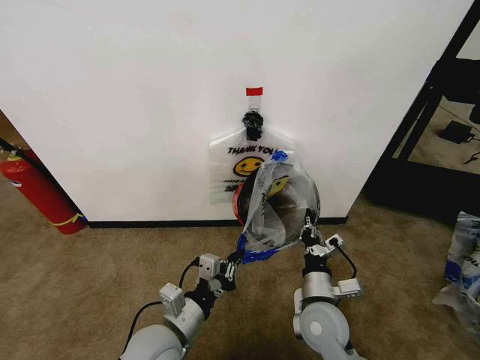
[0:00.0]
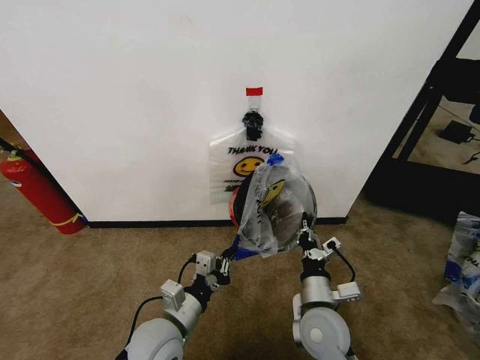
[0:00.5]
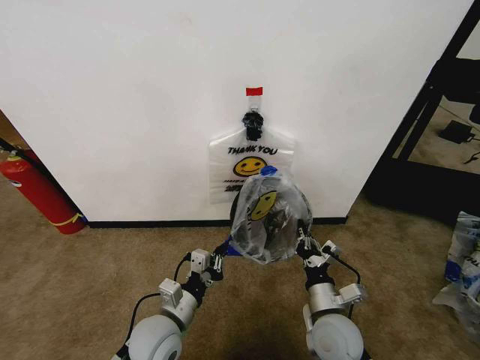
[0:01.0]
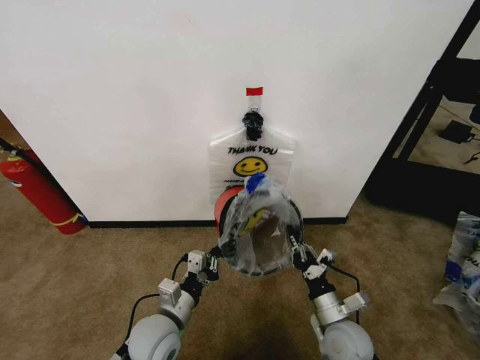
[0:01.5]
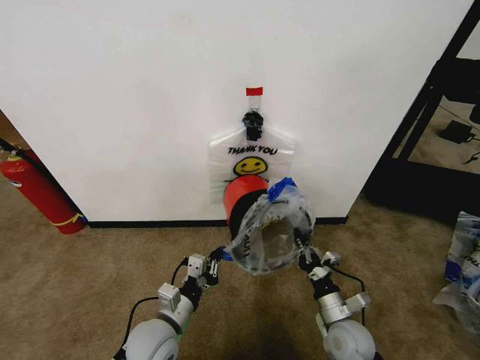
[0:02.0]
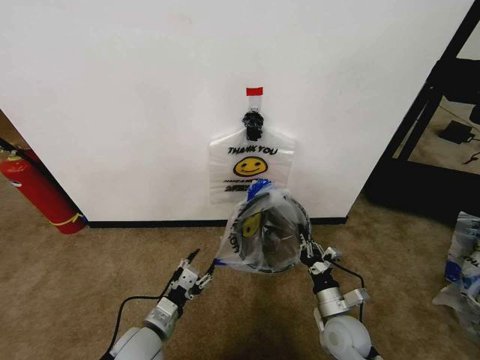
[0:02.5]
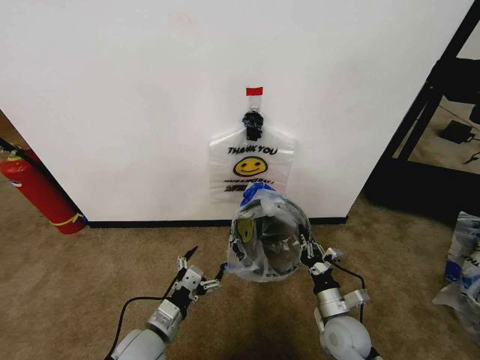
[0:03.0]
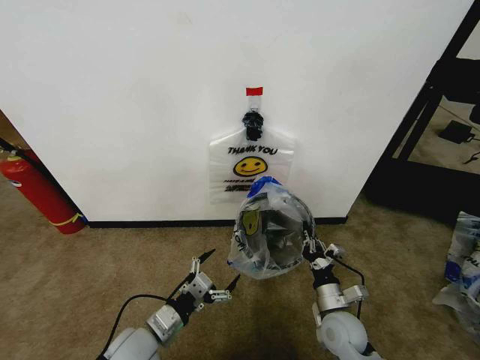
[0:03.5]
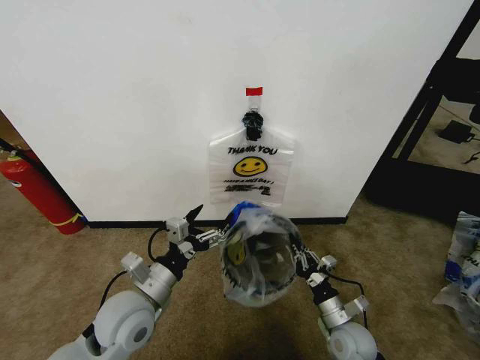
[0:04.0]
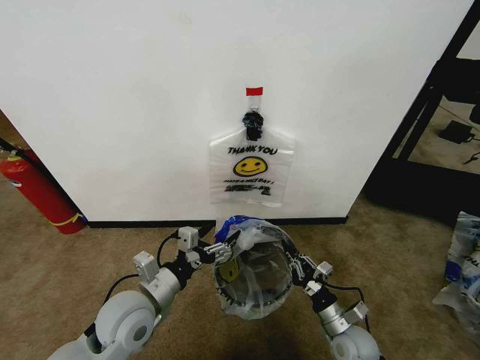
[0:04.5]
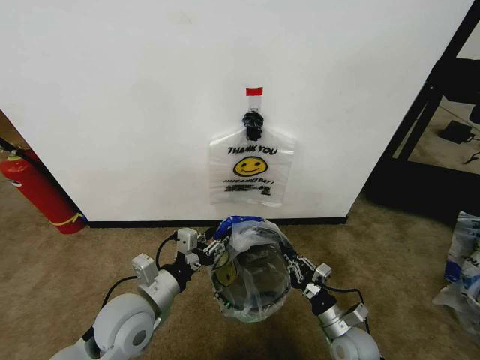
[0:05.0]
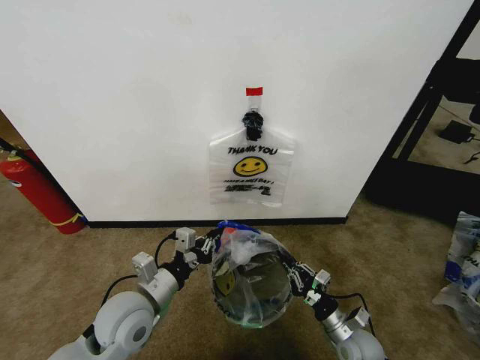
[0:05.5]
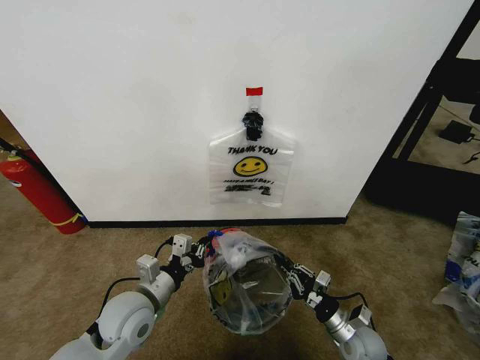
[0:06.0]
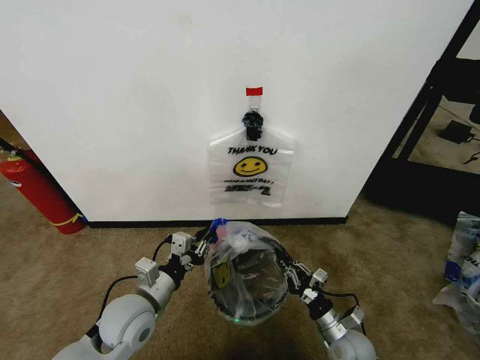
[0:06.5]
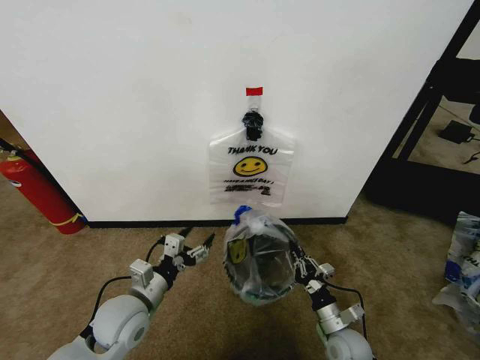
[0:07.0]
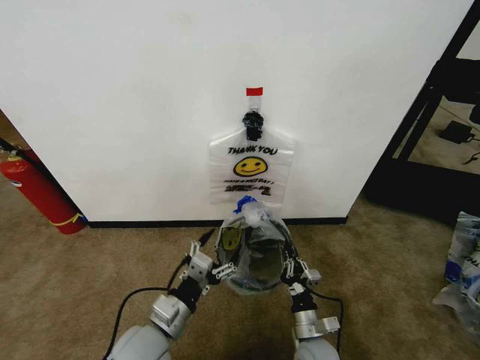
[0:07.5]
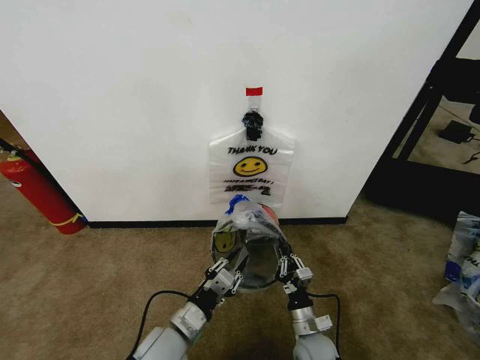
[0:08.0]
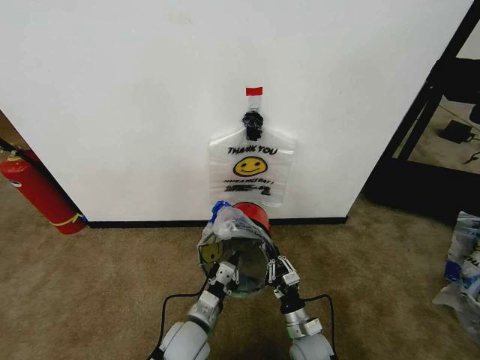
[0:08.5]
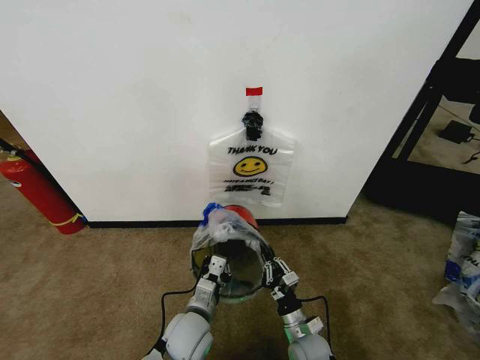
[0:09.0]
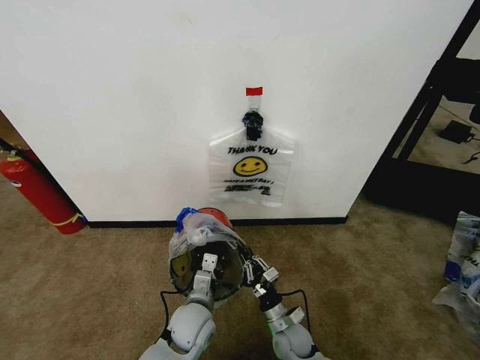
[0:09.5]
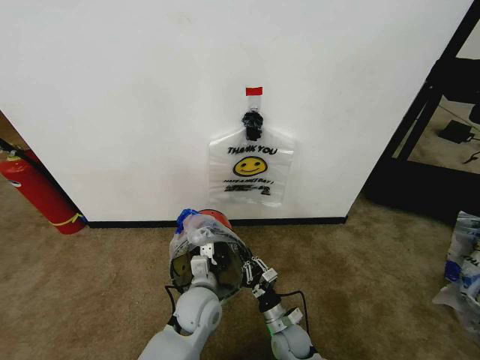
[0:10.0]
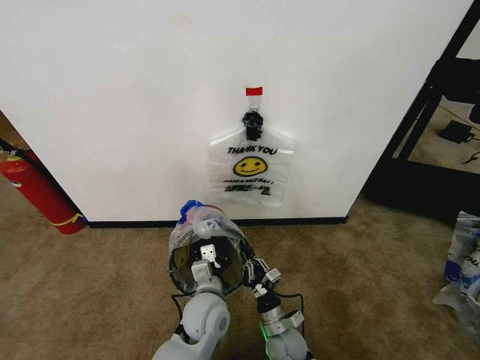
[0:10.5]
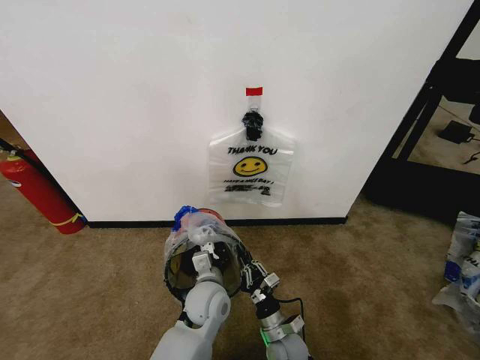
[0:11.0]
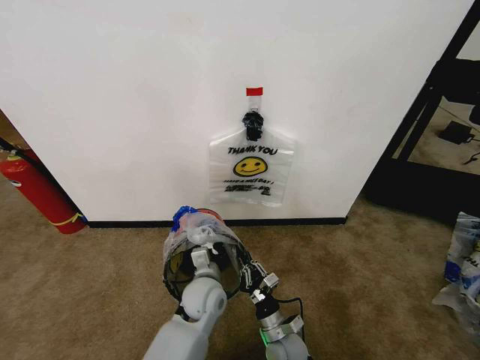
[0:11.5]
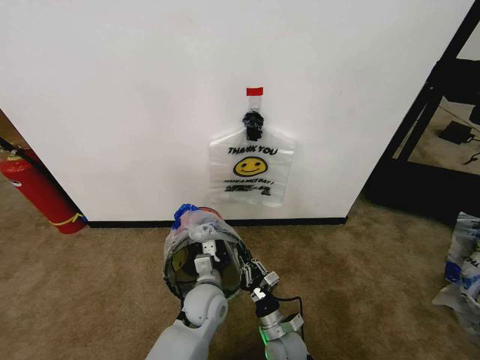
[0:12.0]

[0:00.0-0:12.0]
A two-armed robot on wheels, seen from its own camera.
Task of the whole recording: Pick up the garbage bag from the wall and place it over the trash bin.
0:00.0 to 0:02.0: The right gripper heads downward and to the right, covering about 10 cm. The left gripper shifts roughly 5 cm downward.
0:02.0 to 0:04.0: The left gripper is displaced upward by about 10 cm, and opens up.
0:04.0 to 0:06.0: The left gripper closes its fingers.
0:06.0 to 0:08.0: The left gripper moves downward and to the right, approximately 10 cm, and opens, then closes again; the right gripper is displaced to the left by about 10 cm.
0:08.0 to 0:10.0: The left gripper heads forward and to the right, covering approximately 10 cm; the right gripper moves some 5 cm.
0:10.0 to 0:12.0: The grippers make only small movements.

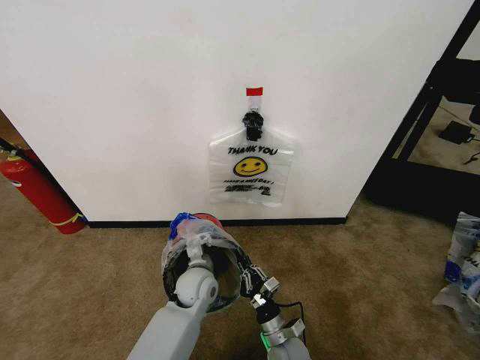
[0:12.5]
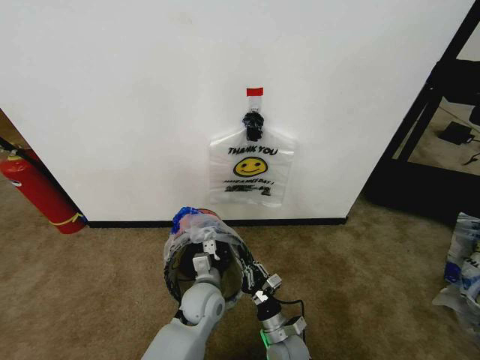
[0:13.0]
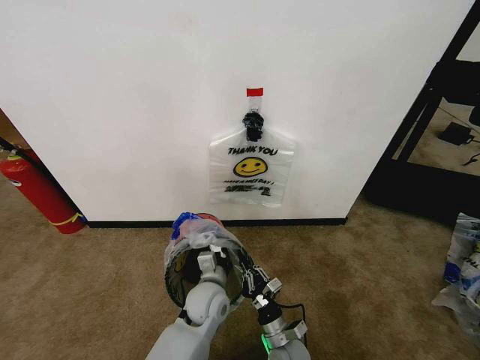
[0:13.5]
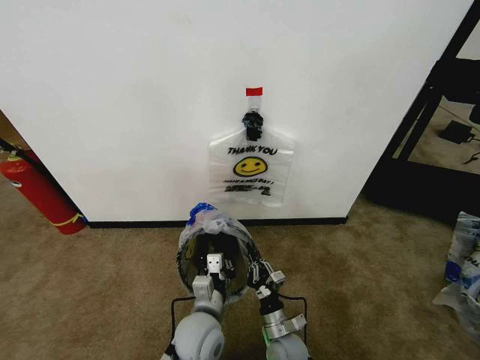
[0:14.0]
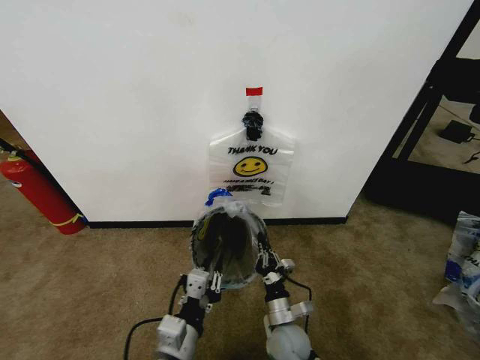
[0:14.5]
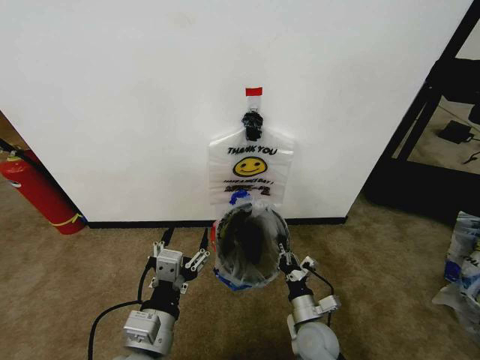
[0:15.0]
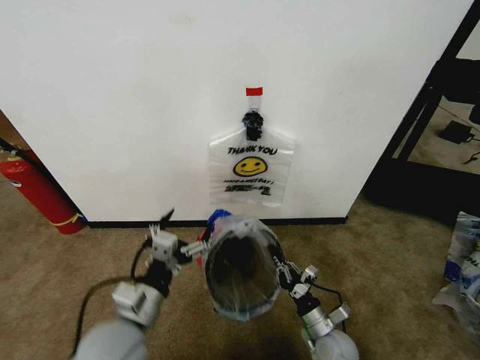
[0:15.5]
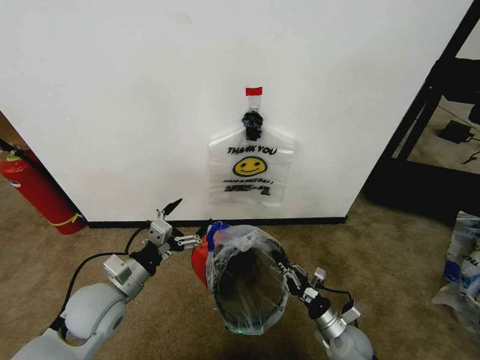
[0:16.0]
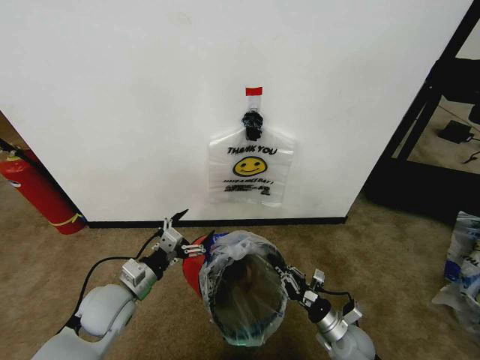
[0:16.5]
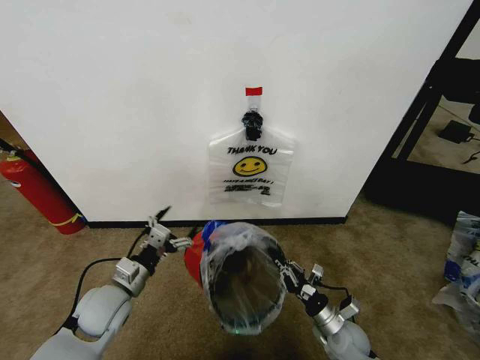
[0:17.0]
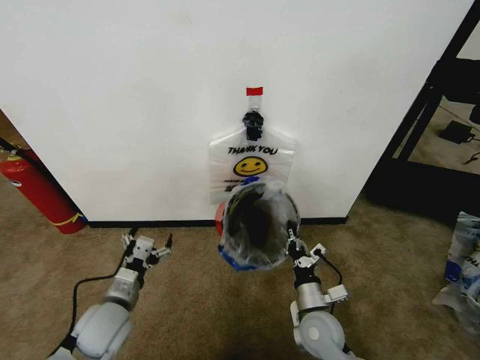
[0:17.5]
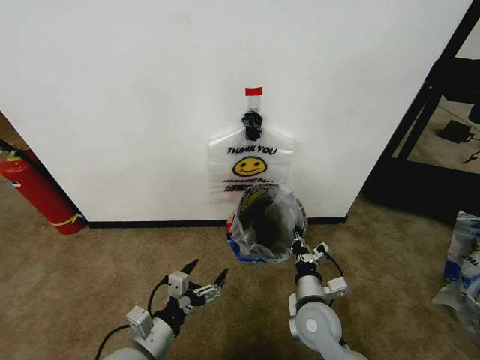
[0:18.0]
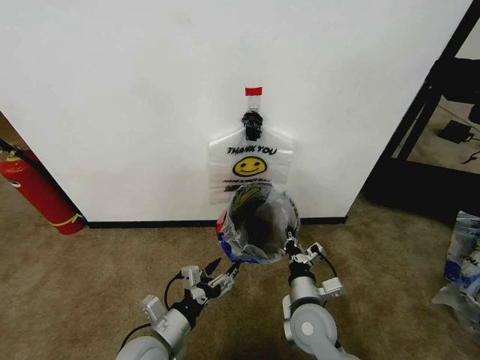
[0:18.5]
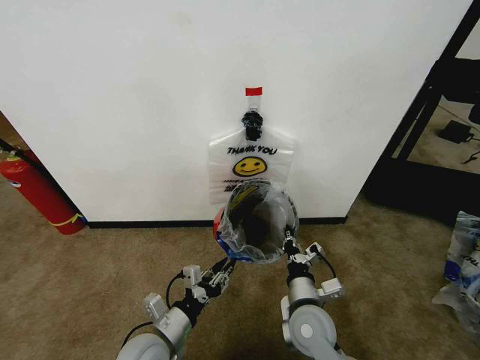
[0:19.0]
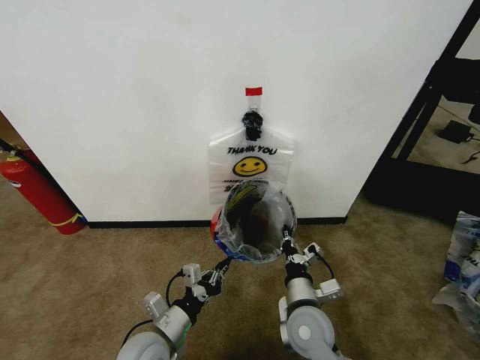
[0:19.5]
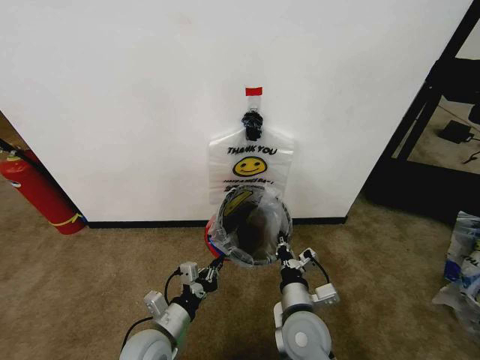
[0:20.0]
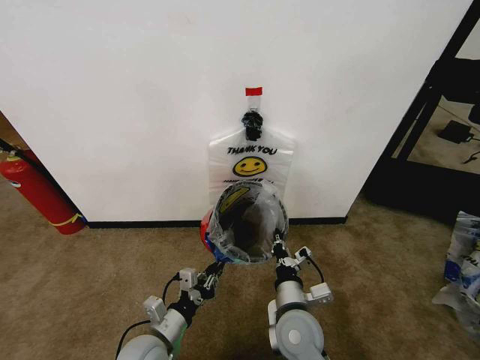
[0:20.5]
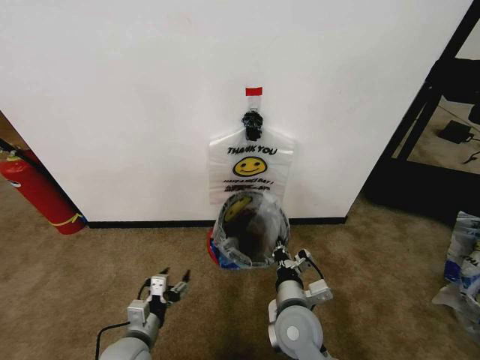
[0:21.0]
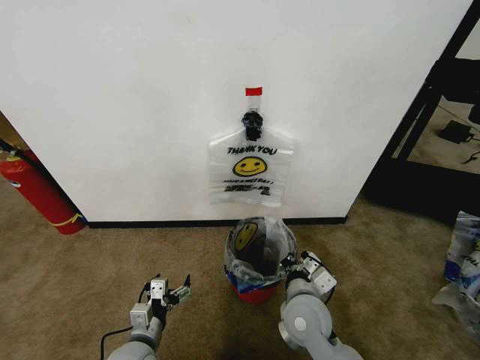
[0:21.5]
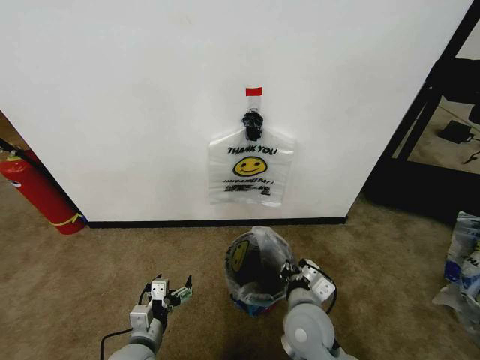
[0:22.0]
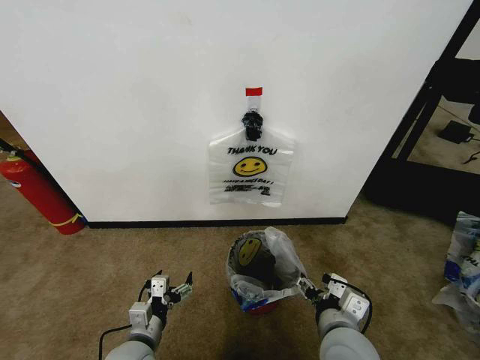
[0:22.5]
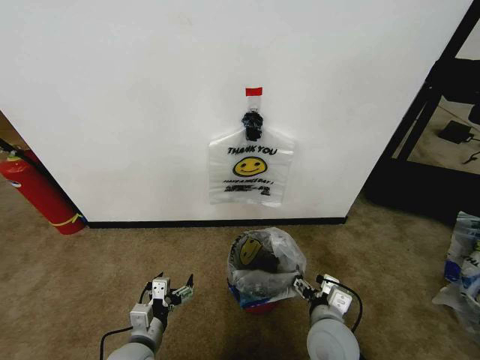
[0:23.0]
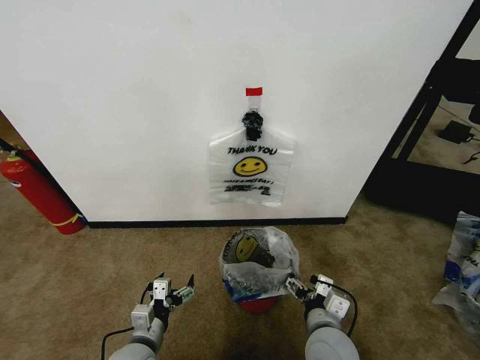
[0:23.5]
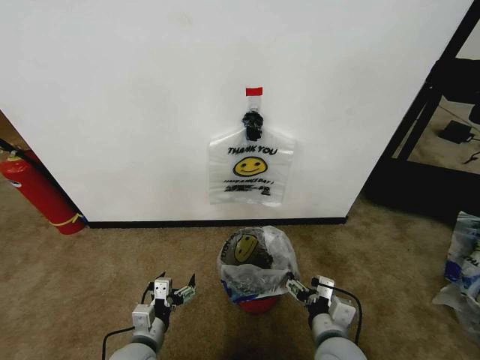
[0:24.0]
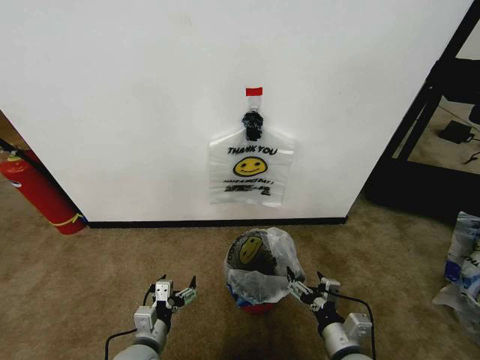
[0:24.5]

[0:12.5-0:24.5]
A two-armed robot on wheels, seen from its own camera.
Task of the whole recording: Pick up the garbage bag from the wall and place it over the trash bin.
0:12.5 to 0:14.5: The left gripper travels backward by some 20 cm.
0:14.5 to 0:16.5: The left gripper heads to the left and forward, covering about 20 cm, and opens; the right gripper moves to the right, some 15 cm.
0:16.5 to 0:18.5: The right gripper travels to the left and upward by about 20 cm. Meanwhile the left gripper moves backward and to the right, some 10 cm.
0:18.5 to 0:20.5: The left gripper closes its fingers.
0:20.5 to 0:22.5: The right gripper goes approximately 10 cm to the right and upward, and opens its fingers; the left gripper opens its fingers.
0:22.5 to 0:24.5: The right gripper goes approximately 10 cm downward.

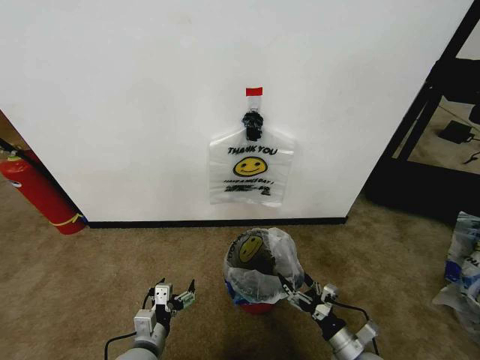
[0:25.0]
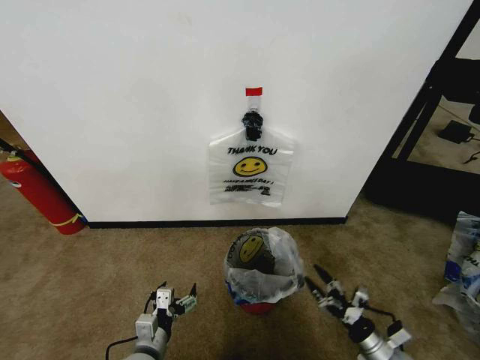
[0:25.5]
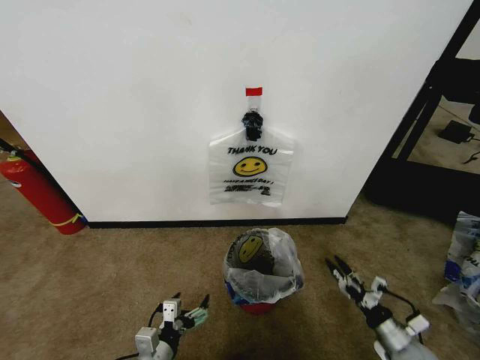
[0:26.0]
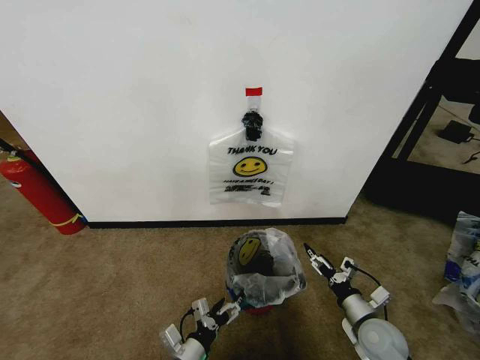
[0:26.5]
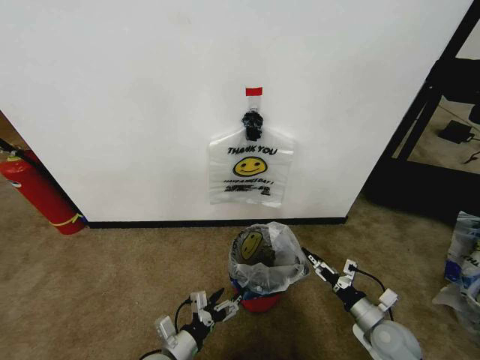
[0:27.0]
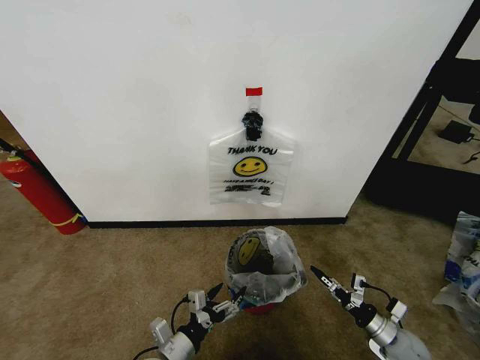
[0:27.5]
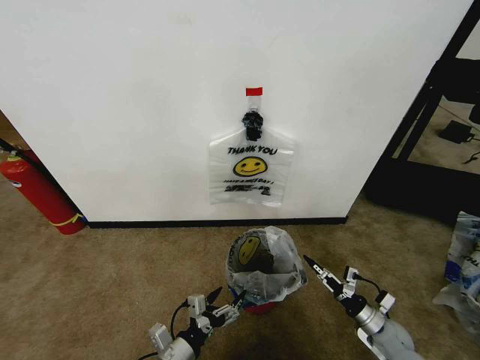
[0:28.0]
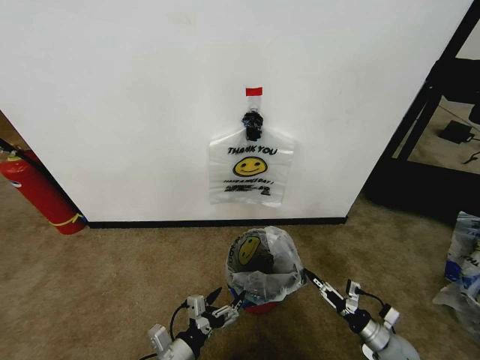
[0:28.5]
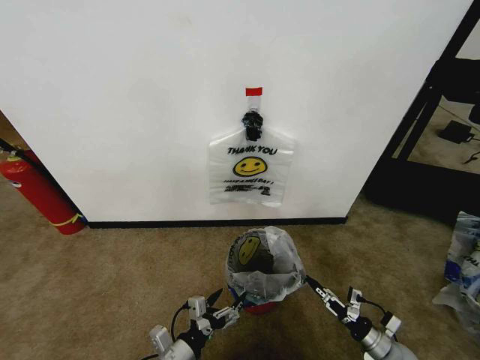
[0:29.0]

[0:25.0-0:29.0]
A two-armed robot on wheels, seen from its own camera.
Task of the whole recording: Pick up the garbage bag from the wall and place it over the trash bin.
0:25.0 to 0:27.0: The right gripper shifts roughly 10 cm to the right and forward.
0:27.0 to 0:29.0: The right gripper heads downward and to the right, covering about 15 cm, and closes and opens again.
